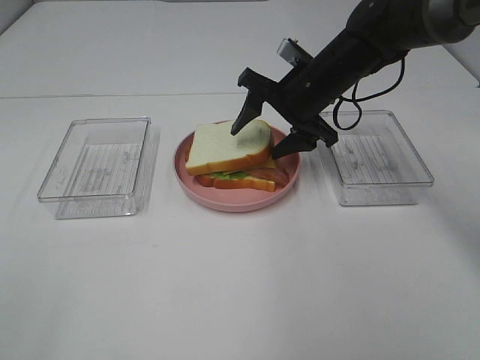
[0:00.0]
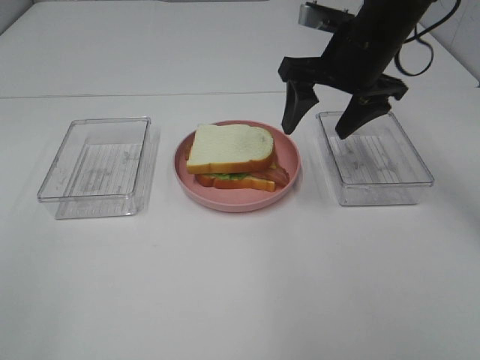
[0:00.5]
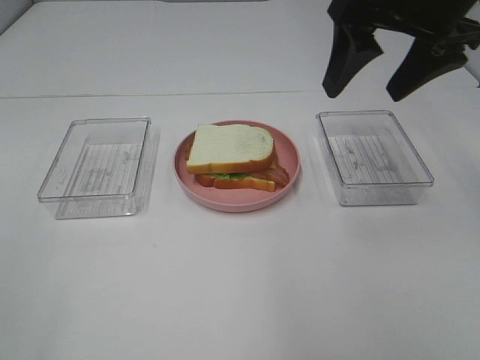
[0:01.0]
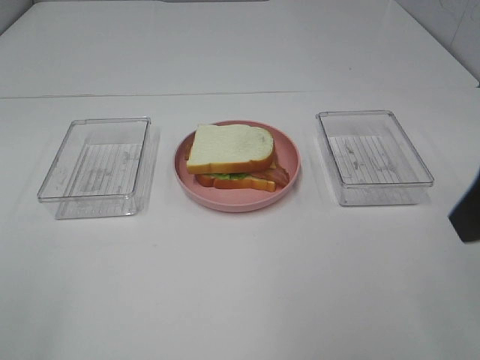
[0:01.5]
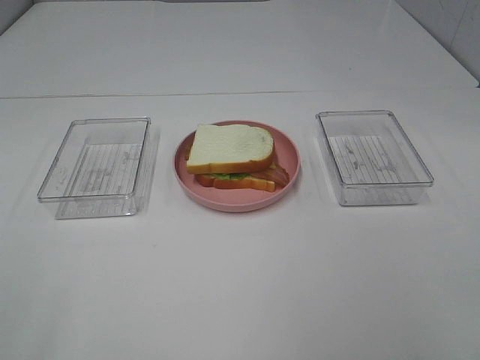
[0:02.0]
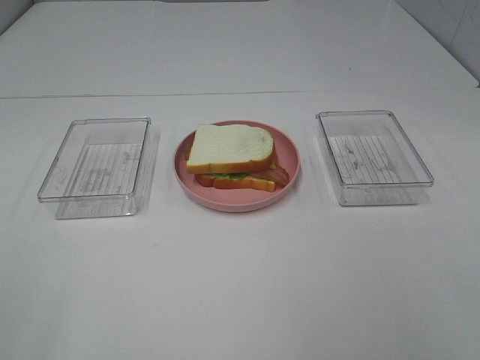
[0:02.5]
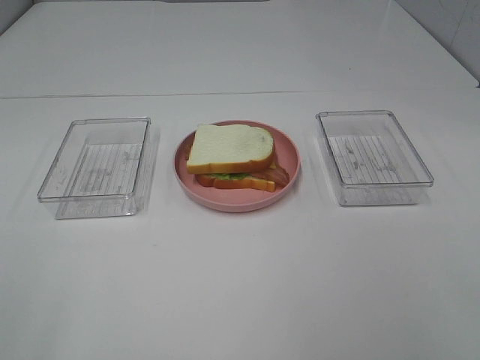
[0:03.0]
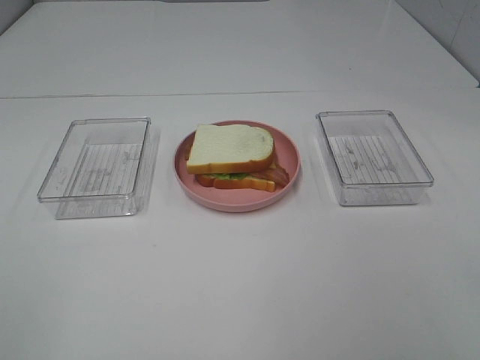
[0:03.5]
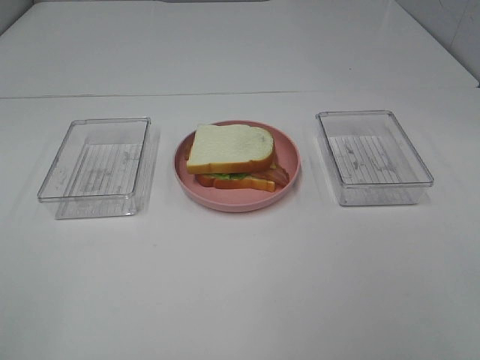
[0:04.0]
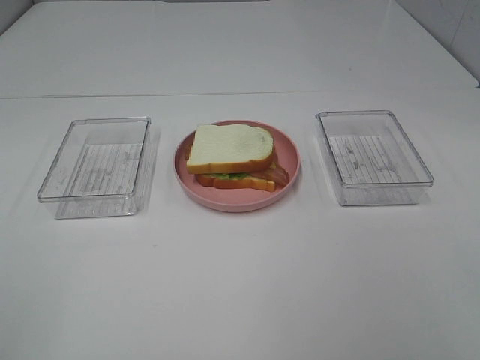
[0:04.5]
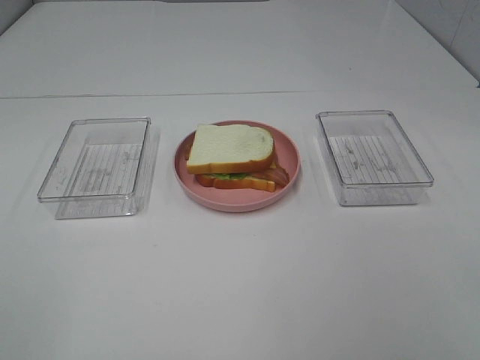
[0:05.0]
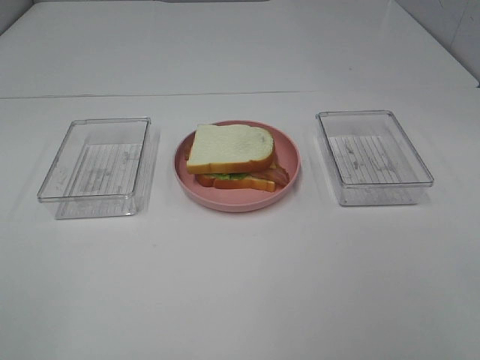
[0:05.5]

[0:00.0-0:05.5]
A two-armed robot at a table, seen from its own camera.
Task of the whole recording: Make sandwiches.
0:00.0 to 0:02.0: The right gripper shifts some 40 cm backward and to the right.
0:03.5 to 0:05.5: The two grippers keep their place.

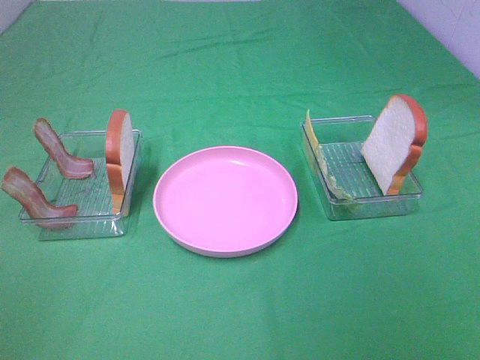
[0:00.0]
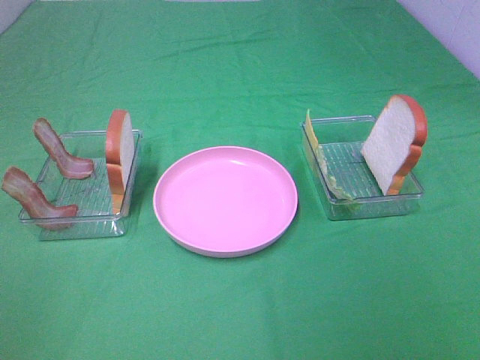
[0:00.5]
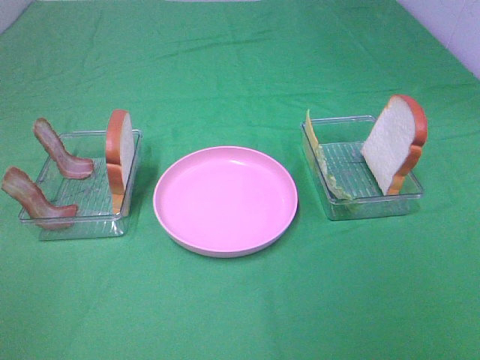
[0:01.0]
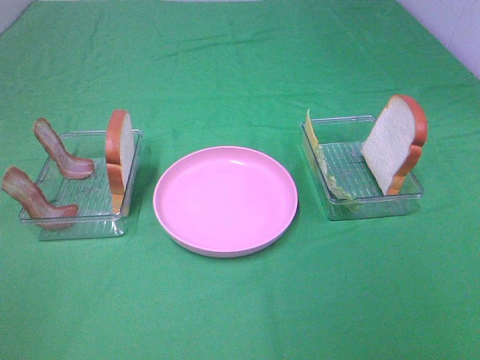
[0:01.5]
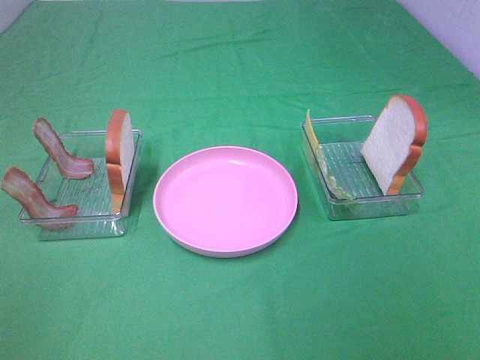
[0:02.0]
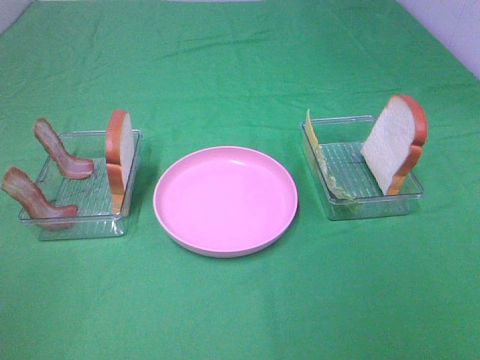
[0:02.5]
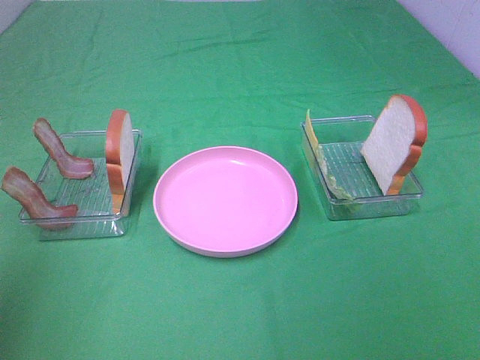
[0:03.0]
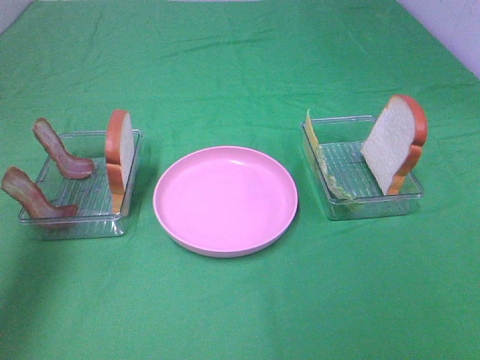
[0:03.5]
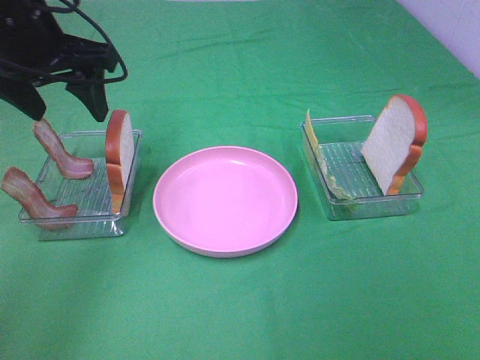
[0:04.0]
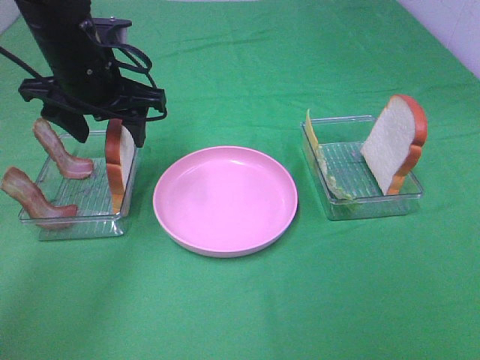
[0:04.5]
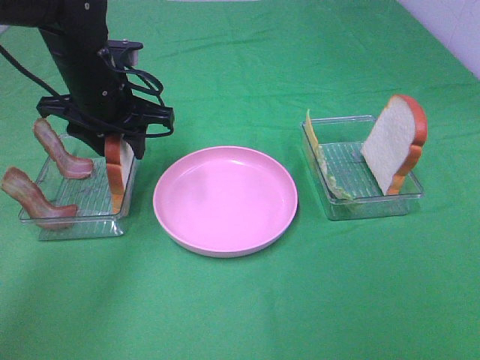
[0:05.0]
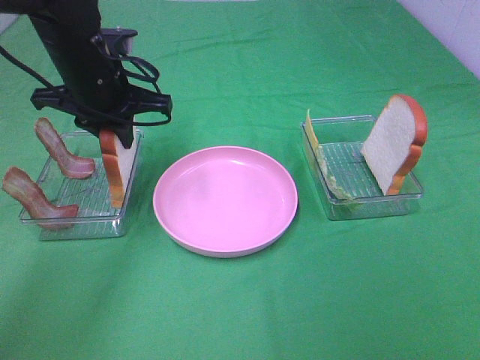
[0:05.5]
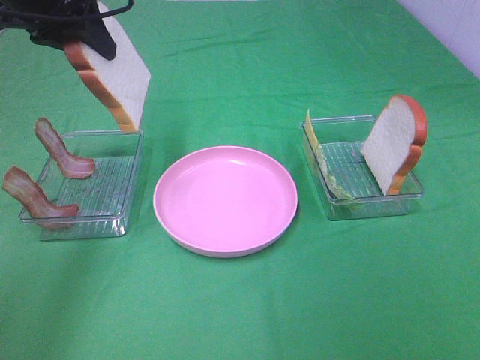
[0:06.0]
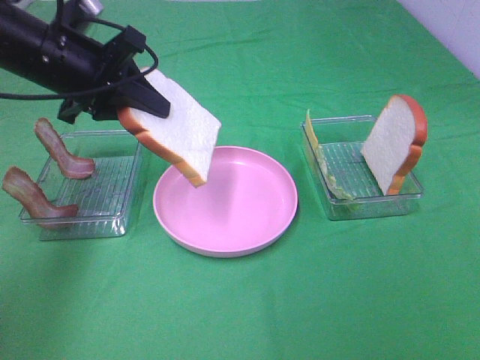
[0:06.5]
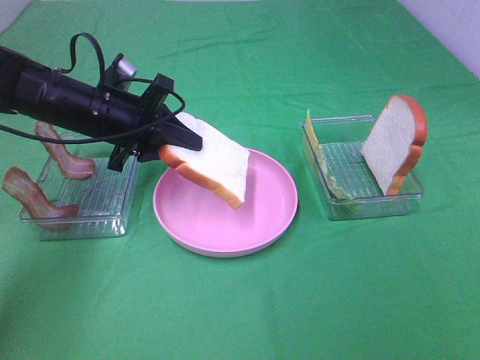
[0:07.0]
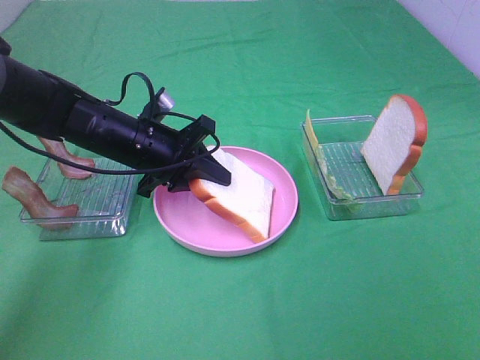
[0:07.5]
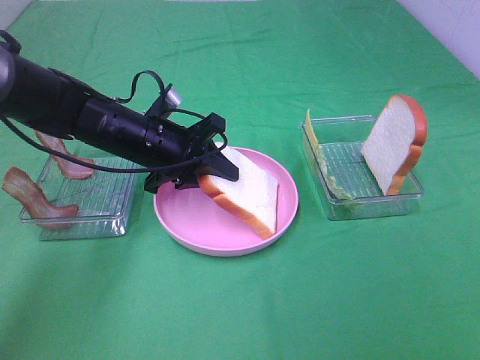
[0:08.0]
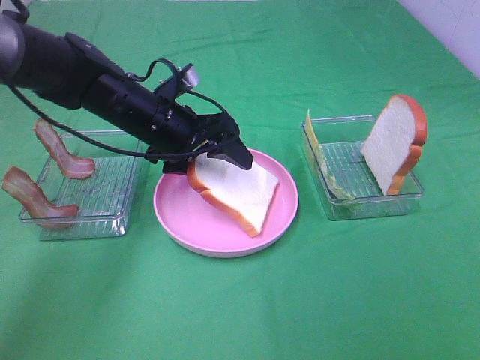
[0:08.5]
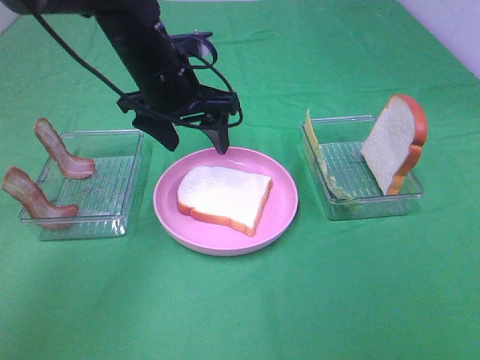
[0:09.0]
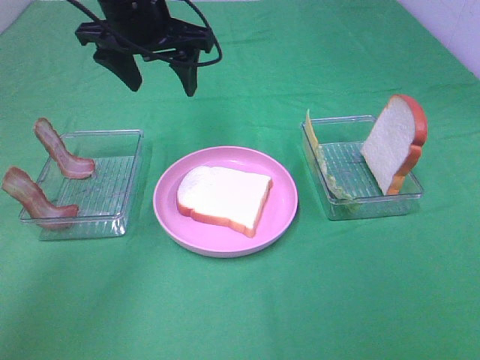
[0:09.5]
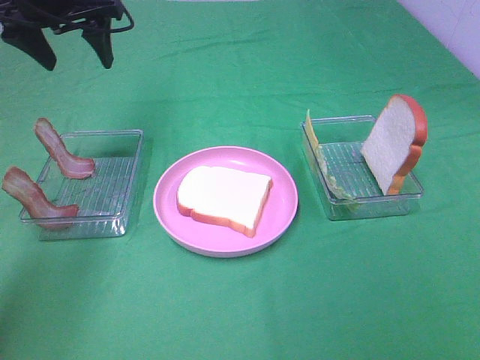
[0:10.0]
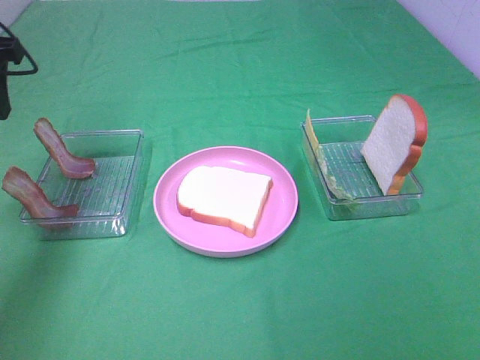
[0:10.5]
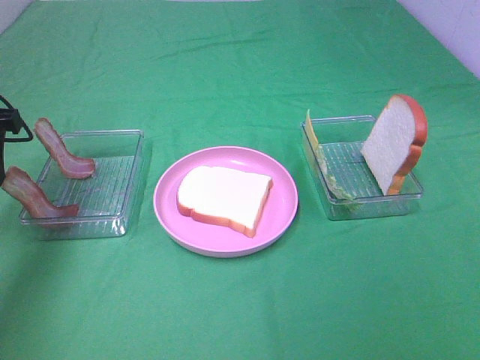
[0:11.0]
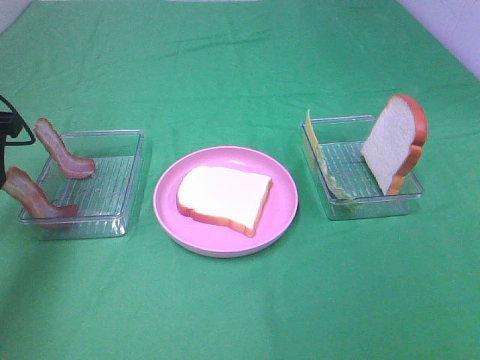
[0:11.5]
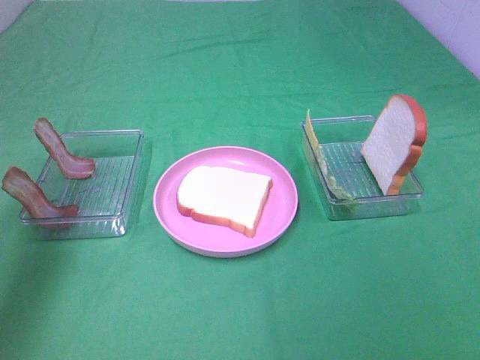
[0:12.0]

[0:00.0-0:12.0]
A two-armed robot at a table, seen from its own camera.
Task of the whole recording: Make sandwiches.
Step, 0:00.0 to 0:05.0: Left hand:grab the bread slice.
Step, 0:05.5 to 0:09.0: Left hand:place the bread slice on the plate.
0:00.0 to 0:02.0: Both grippers stay about where they are.
0:02.0 to 0:04.0: The left gripper travels forward by approximately 35 cm.
0:04.0 to 0:06.0: The left gripper goes downward and returns, roughly 10 cm each way, and closes.
0:06.0 to 0:08.0: The left gripper moves downward, approximately 20 cm.
0:08.0 to 0:10.0: The left gripper goes about 20 cm upward and to the left, and opens up.
0:10.0 to 0:12.0: The left gripper goes about 20 cm backward and to the left.

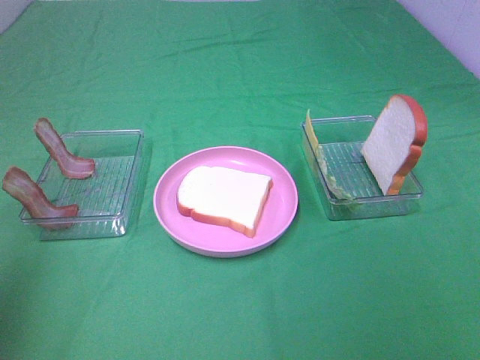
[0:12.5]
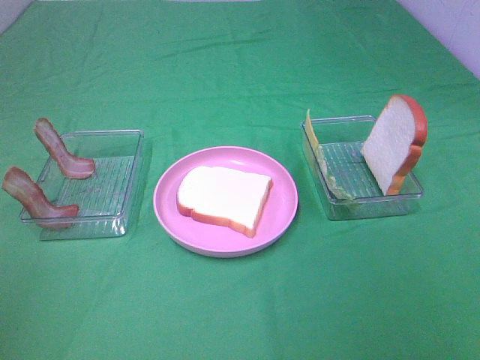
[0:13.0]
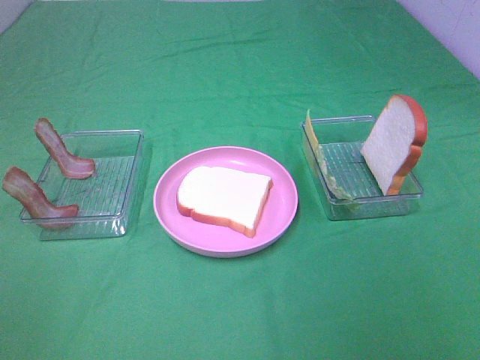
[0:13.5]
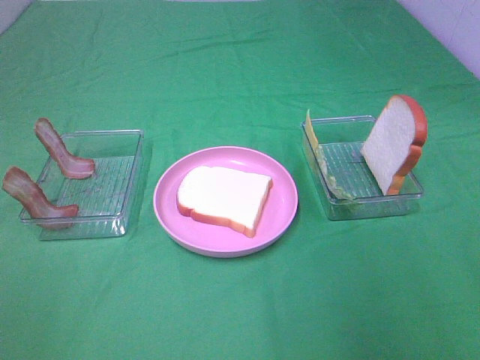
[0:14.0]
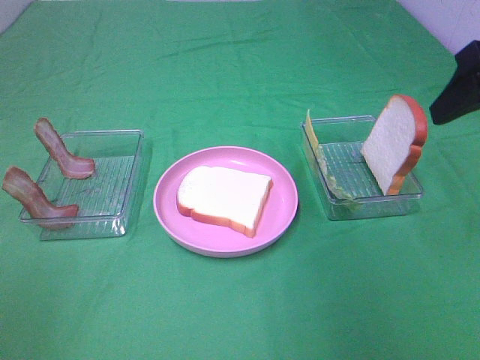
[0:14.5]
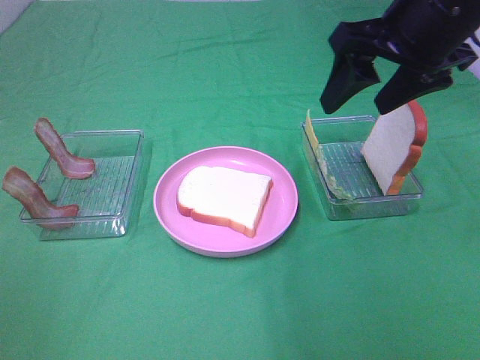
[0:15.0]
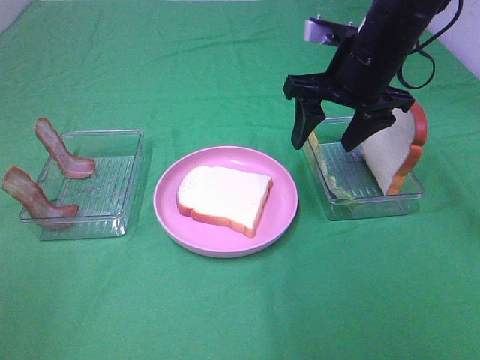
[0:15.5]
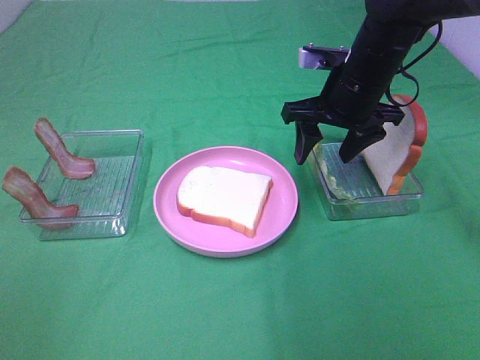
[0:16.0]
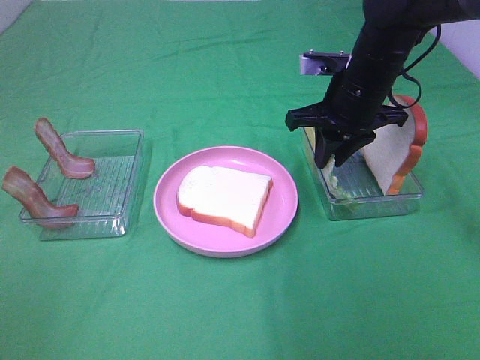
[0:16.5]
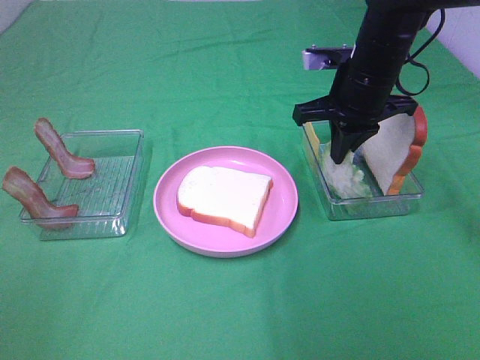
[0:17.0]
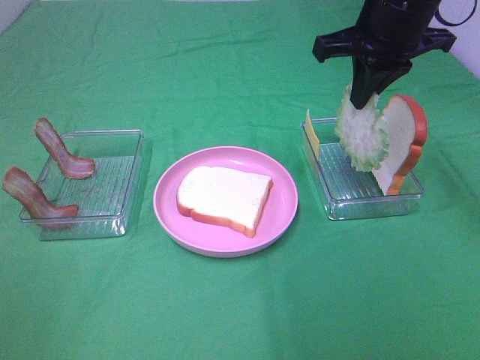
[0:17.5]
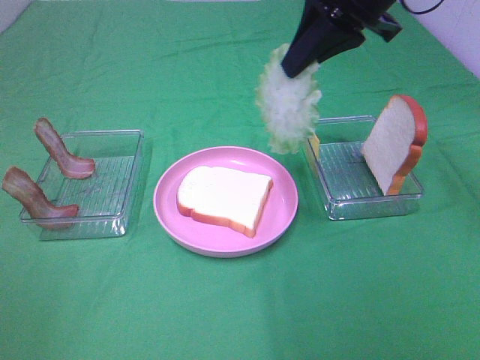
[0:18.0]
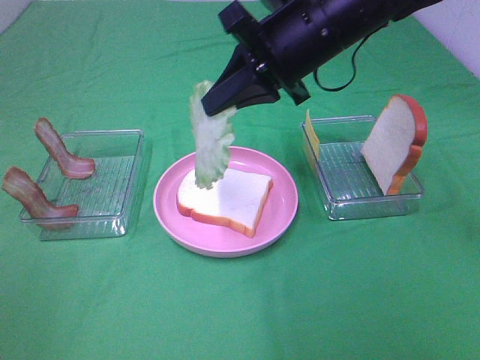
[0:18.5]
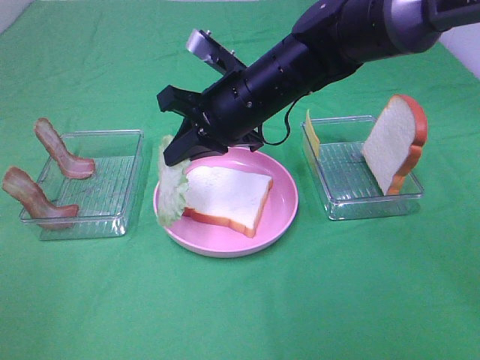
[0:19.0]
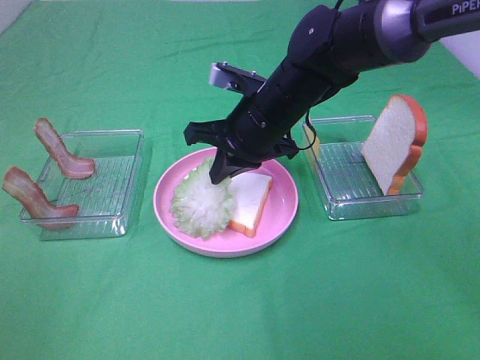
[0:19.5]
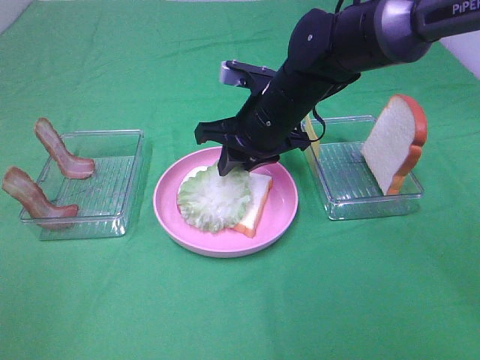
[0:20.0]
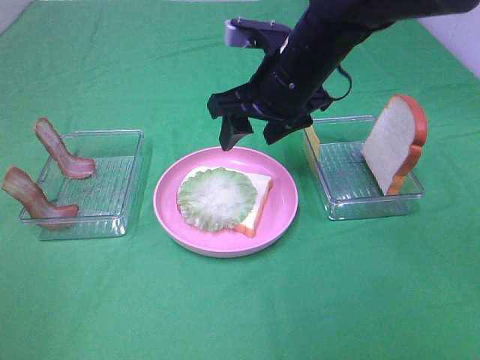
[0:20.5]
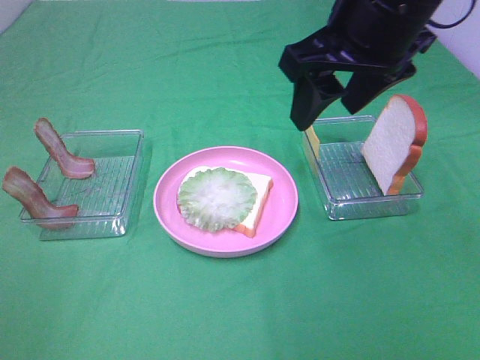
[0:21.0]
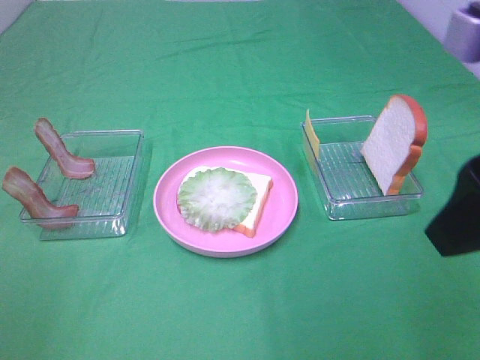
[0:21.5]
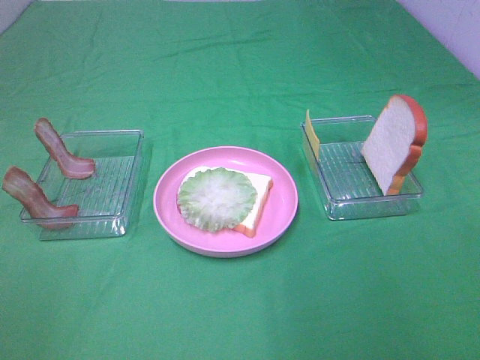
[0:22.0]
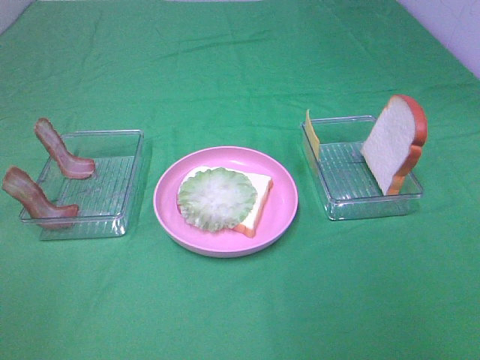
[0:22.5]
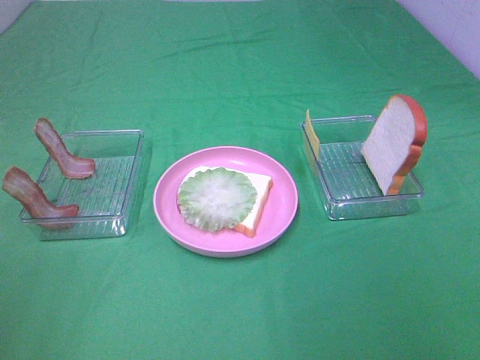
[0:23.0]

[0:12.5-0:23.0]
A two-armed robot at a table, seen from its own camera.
Task of the whole recording: Make sandwiches.
Step, 0:12.5 to 0:16.5: Right hand:grab the lettuce slice.
Step, 0:17.0 to 0:20.0: Right hand:place the lettuce slice on the bread slice.
0:12.5 to 0:14.5: The right gripper moves forward, about 25 cm.
0:14.5 to 0:16.5: The right gripper is displaced forward, downward and to the left by approximately 20 cm, and closes.
0:16.5 to 0:19.0: The right gripper shifts roughly 10 cm to the left, and moves approximately 15 cm upward and comes back.
0:19.0 to 0:21.0: The right gripper goes some 20 cm upward, to the right and backward, and opens up.
0:21.0 to 0:23.0: The right gripper travels backward and to the right by some 35 cm. The left gripper shifts by approximately 5 cm.
